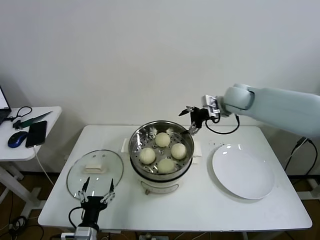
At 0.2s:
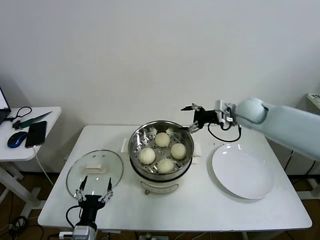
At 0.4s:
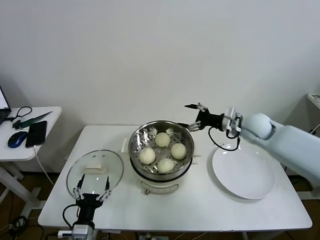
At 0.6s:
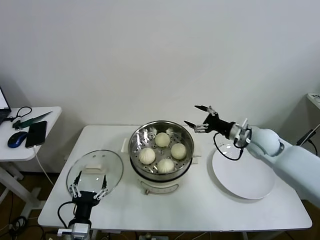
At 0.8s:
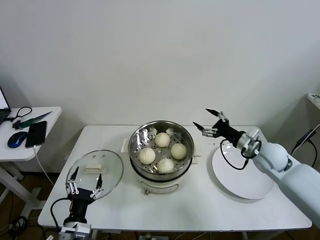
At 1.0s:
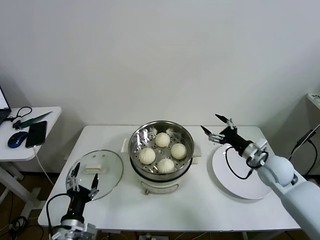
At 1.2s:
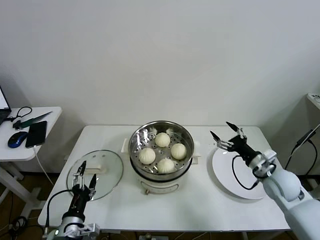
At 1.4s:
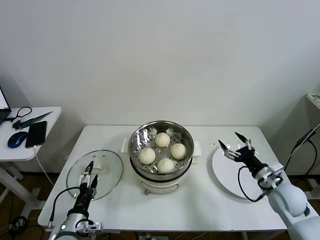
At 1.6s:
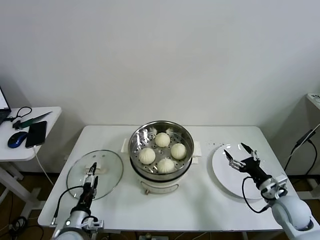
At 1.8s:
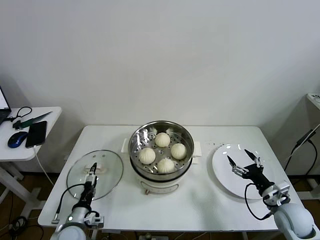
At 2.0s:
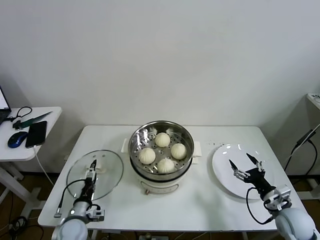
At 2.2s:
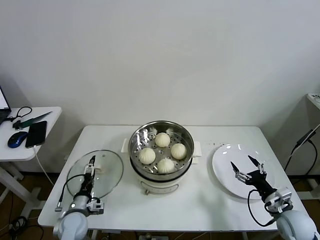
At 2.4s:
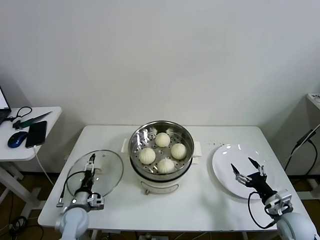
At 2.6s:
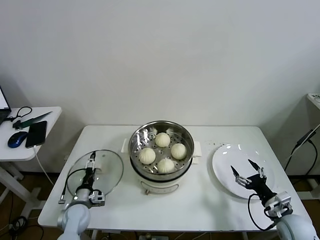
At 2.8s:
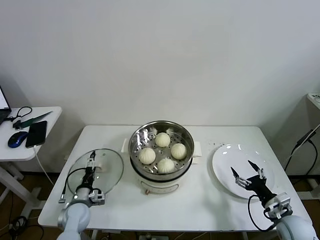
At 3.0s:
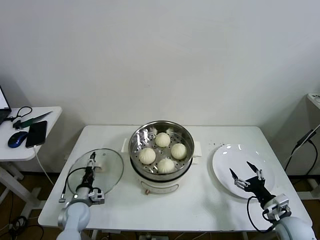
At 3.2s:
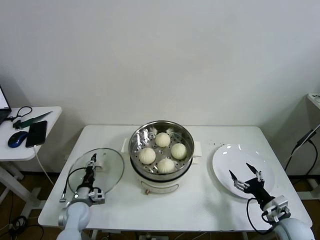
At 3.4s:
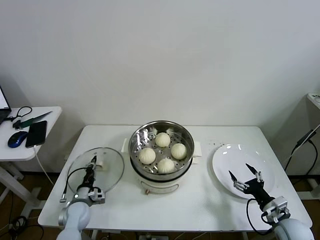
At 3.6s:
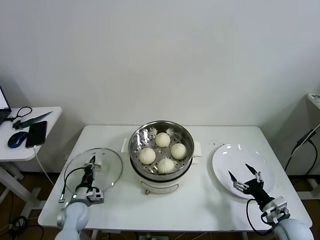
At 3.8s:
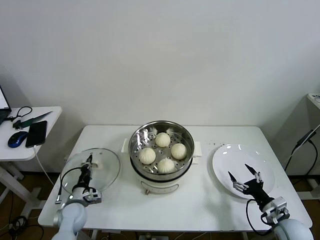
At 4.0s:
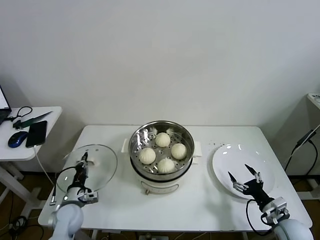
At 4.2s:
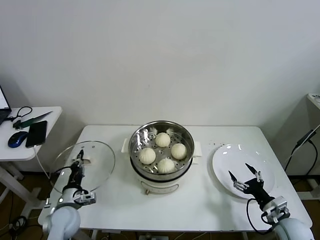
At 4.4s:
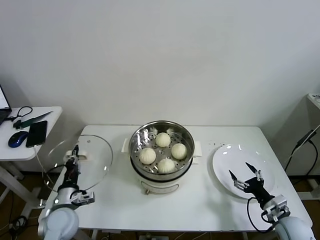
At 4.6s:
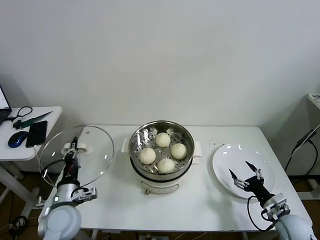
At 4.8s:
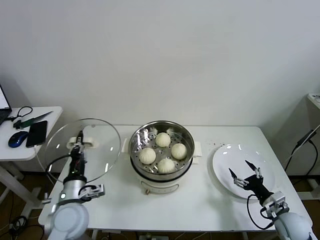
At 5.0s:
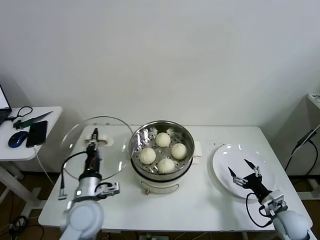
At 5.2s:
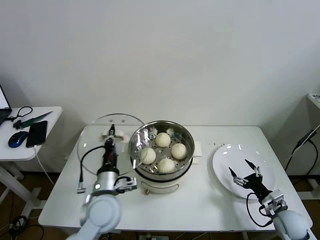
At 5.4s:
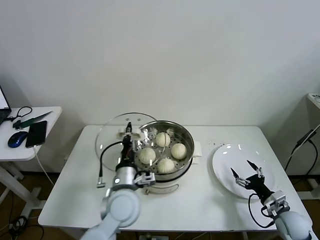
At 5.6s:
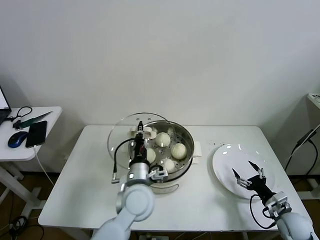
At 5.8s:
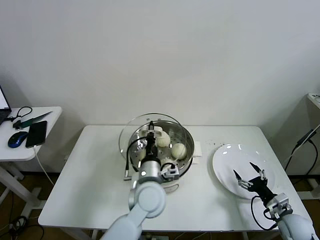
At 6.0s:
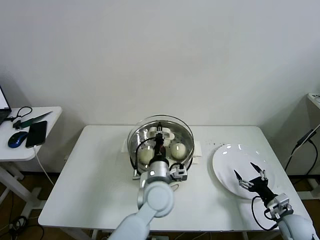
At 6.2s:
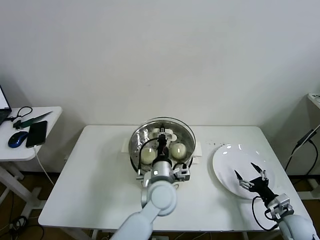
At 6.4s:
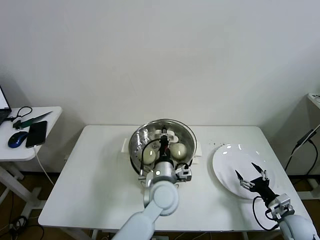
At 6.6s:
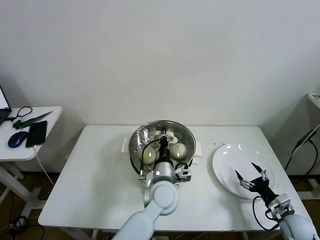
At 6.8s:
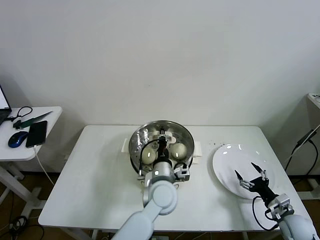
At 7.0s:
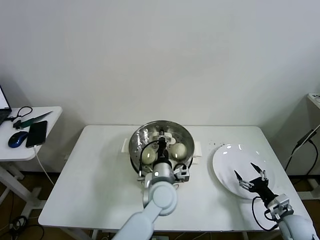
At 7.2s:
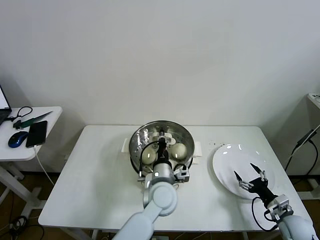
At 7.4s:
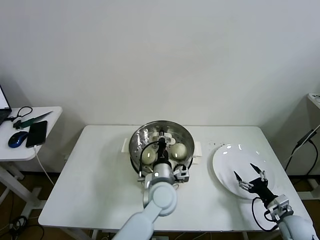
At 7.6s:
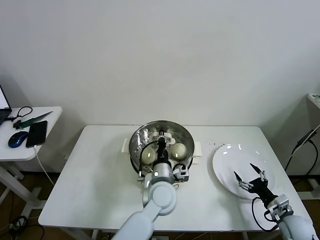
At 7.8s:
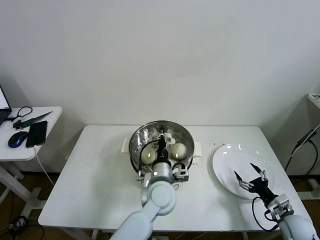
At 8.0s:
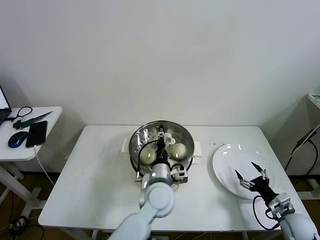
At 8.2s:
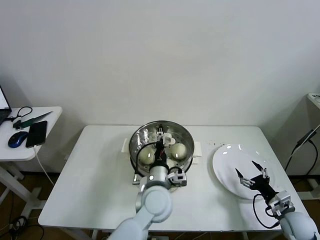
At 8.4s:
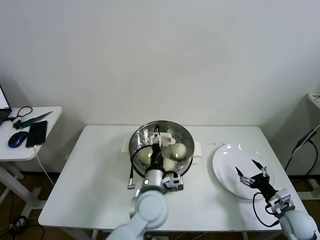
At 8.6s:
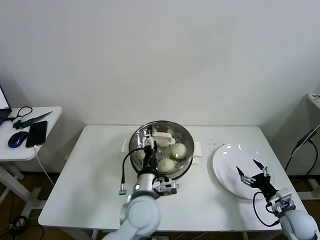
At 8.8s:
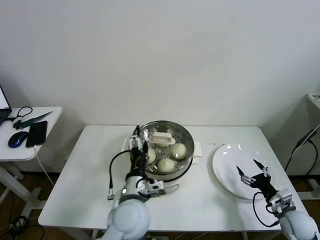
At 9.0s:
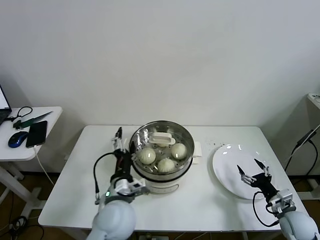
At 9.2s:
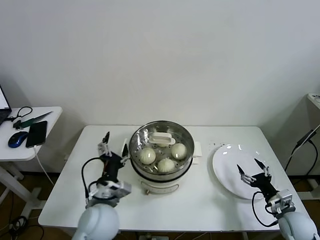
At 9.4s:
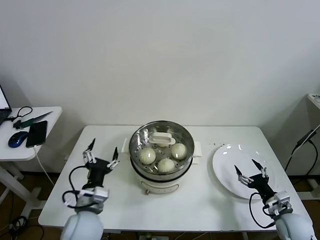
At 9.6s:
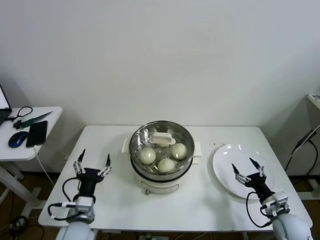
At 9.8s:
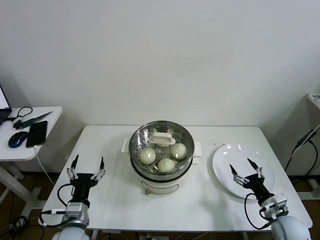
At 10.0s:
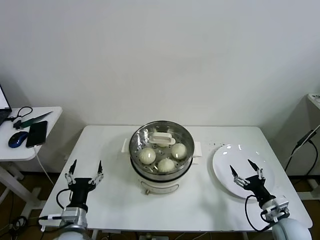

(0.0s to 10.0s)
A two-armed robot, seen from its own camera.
Task of the whole recording: take steamed baozi put them in steamer then cover it.
Step, 0.0s - 3.4s: Grasp the pot lid with left gripper.
Step, 3.6s - 7.8s: Place the pot lid on the steamer with left gripper.
0.0s - 1.4s: The left gripper moves some 5 cm; the right gripper goes about 35 cm backward, downward and to the right.
1.4s - 2.8s: The left gripper travels forward and downward by some 15 cm, while the right gripper is displaced downward and backward by roughly 10 cm.
2.8s - 4.2s: The left gripper shifts approximately 5 cm upward, and closes.
4.2s - 5.8s: The left gripper travels to the right and upward by roughly 30 cm.
5.8s - 7.2s: The left gripper changes place by about 5 cm.
7.2s - 8.6s: The left gripper shifts some 5 cm backward, and opens.
8.6s - 10.0s: The left gripper heads to the left, covering roughly 20 cm.
